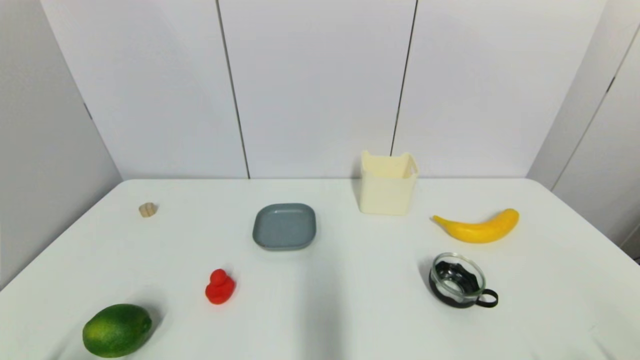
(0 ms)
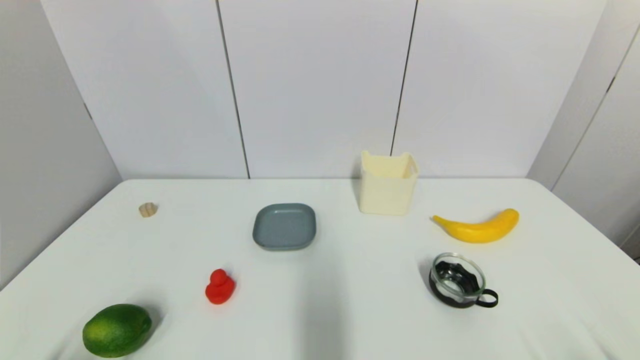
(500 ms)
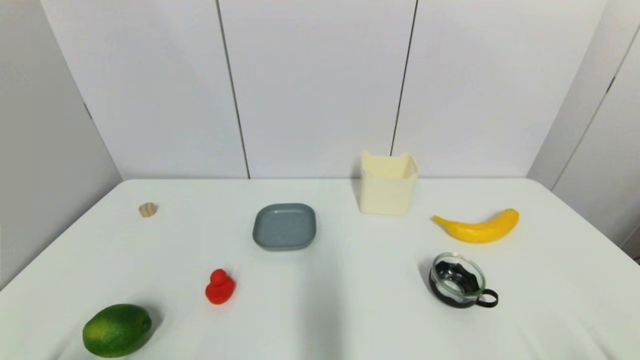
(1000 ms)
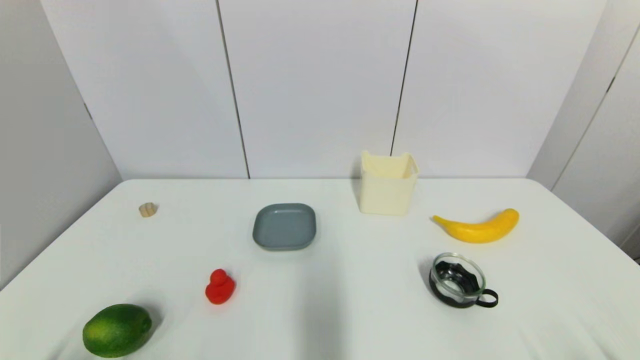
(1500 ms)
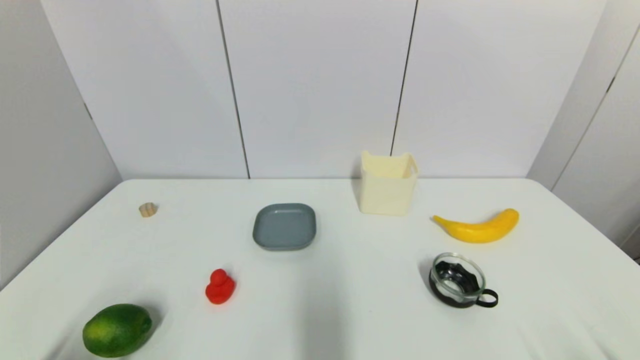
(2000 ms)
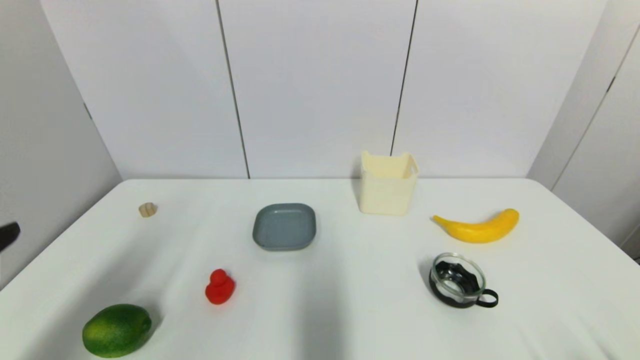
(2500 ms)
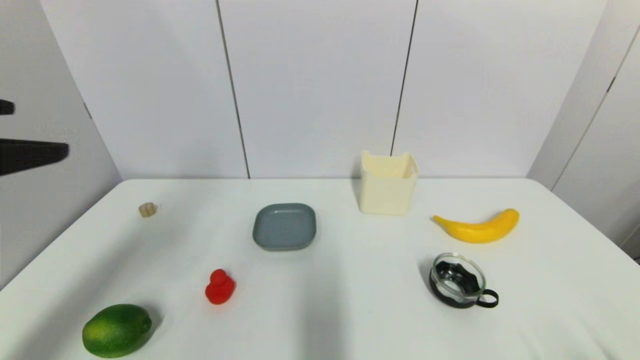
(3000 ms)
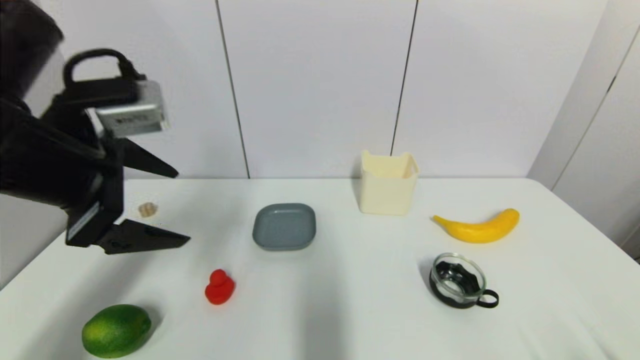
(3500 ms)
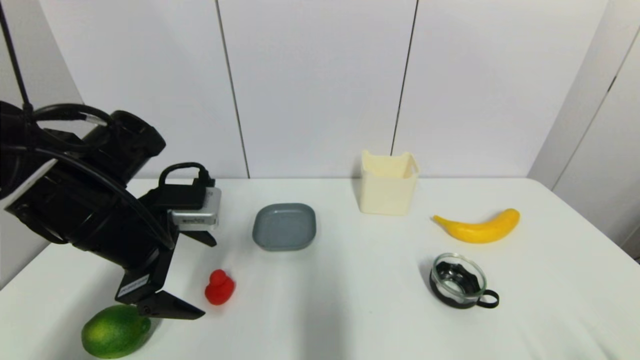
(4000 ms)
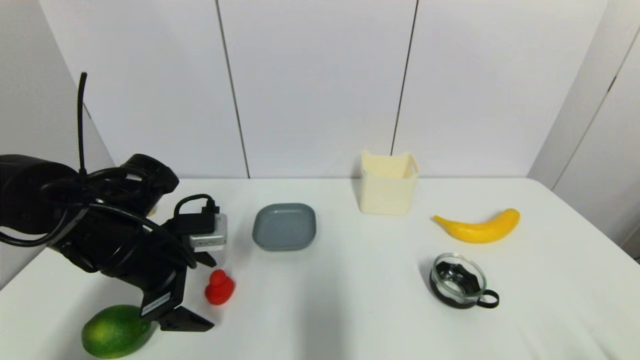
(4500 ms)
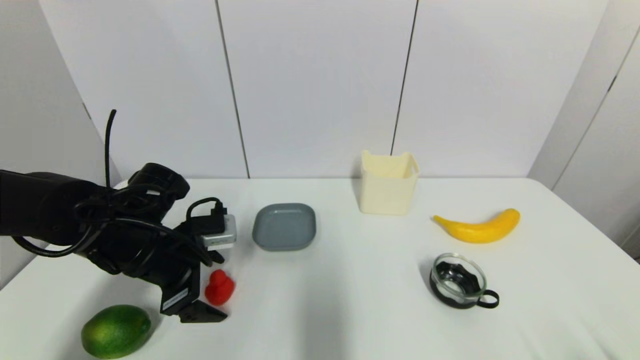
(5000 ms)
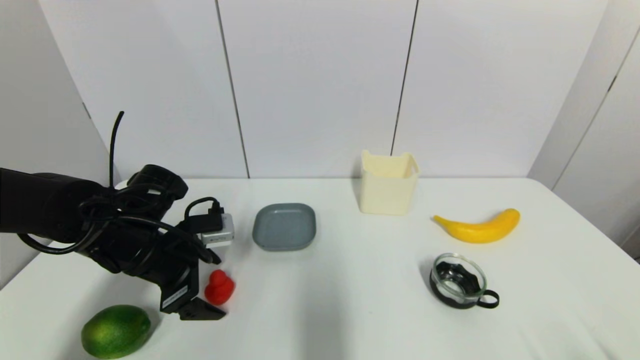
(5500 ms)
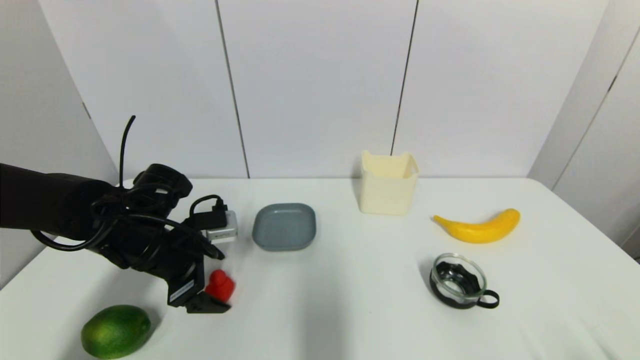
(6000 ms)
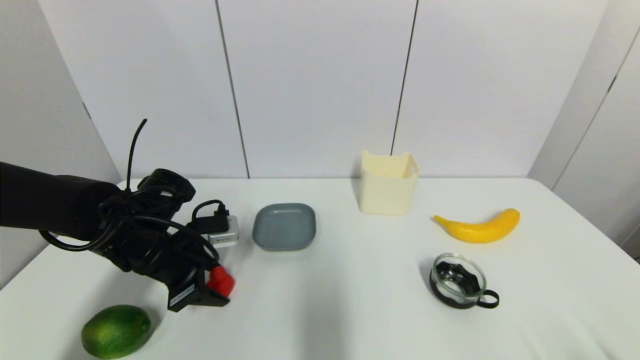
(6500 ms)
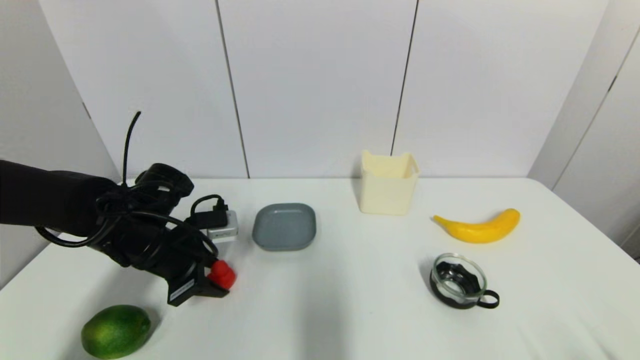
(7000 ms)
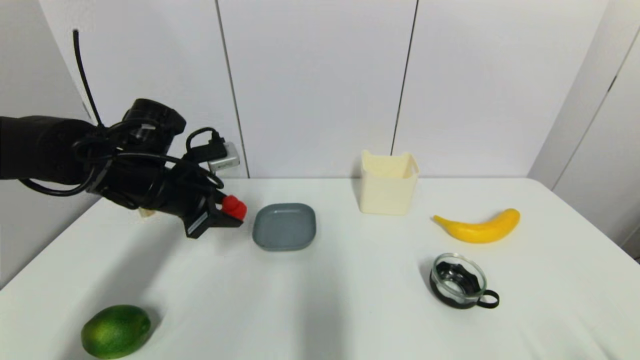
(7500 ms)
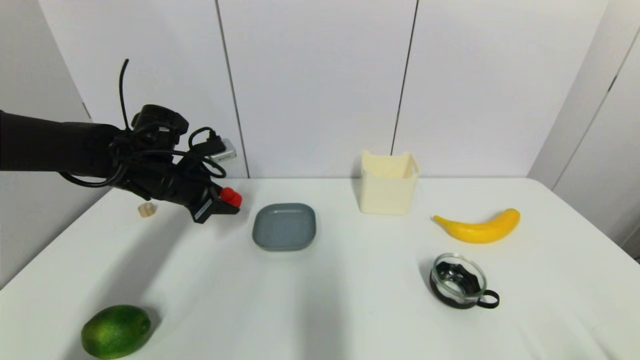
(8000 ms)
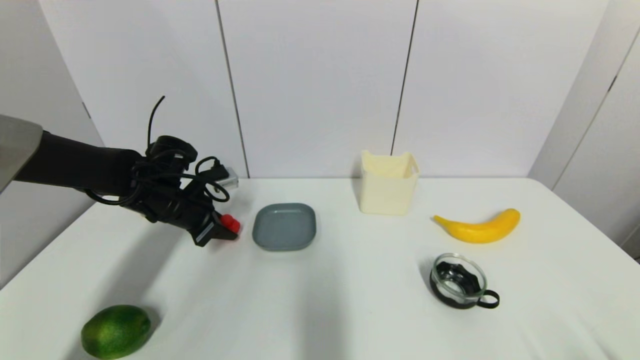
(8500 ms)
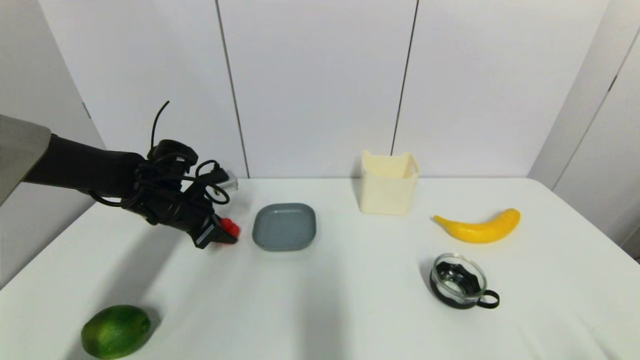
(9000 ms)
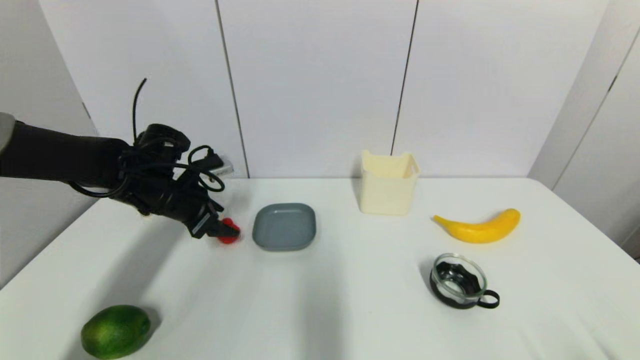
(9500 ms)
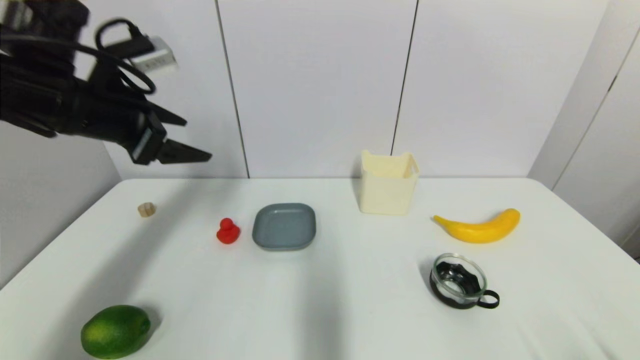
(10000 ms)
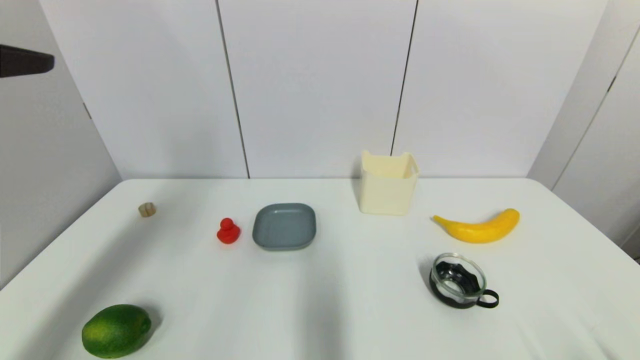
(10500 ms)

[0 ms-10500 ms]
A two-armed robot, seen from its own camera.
Step, 2500 ms to 7000 ms: Grasp the red duck with left gripper.
Step, 7500 ms to 9500 ms: Place the red duck on the table with left gripper.
2000 ms to 4000 ms: The left gripper is displaced forward and upward by roughly 25 cm.
4000 ms to 6500 ms: The left gripper goes some 10 cm downward, and closes its fingers.
6500 ms to 8500 ms: The left gripper shifts roughly 10 cm forward.
8500 ms to 10500 ms: The left gripper goes roughly 35 cm upward and backward, and opens its fingers.

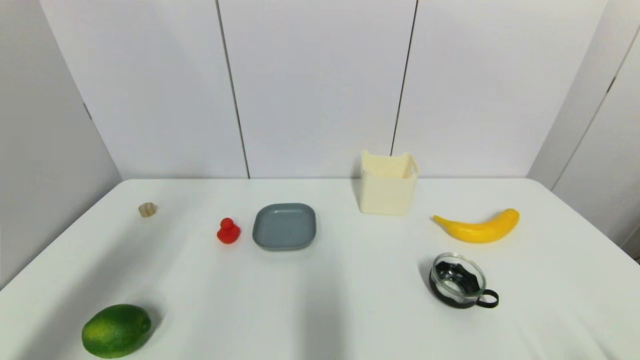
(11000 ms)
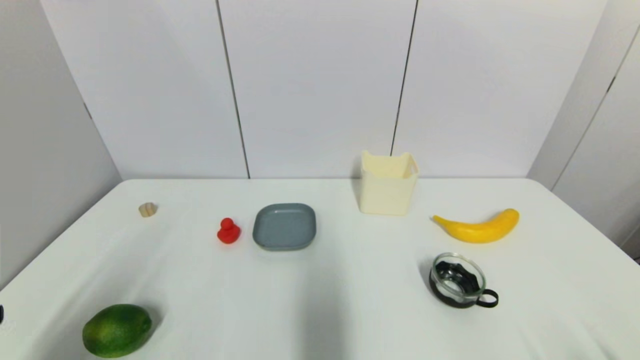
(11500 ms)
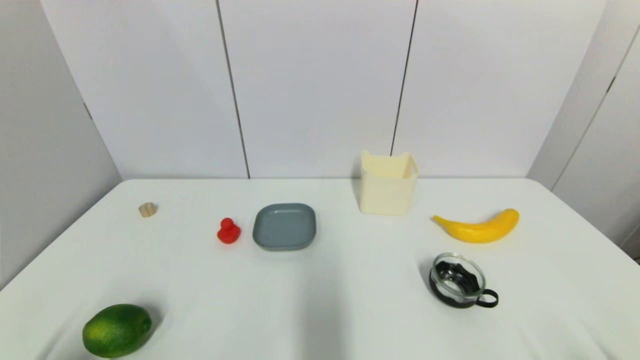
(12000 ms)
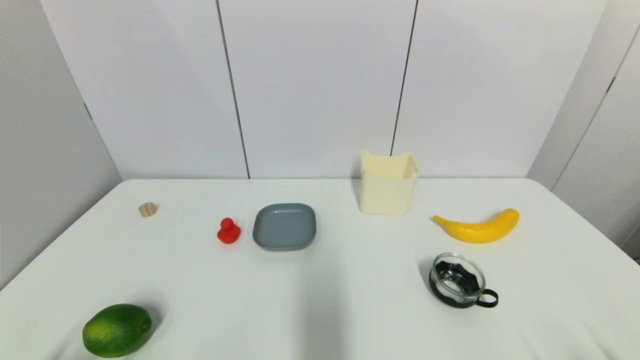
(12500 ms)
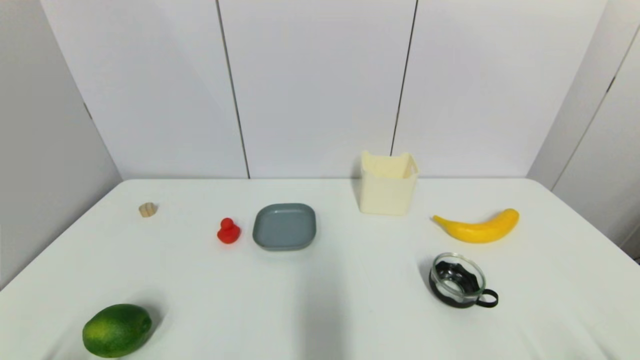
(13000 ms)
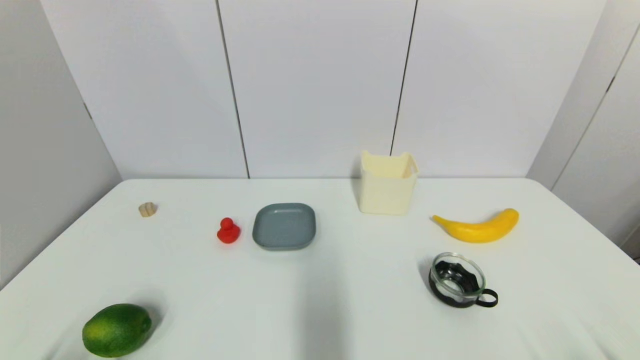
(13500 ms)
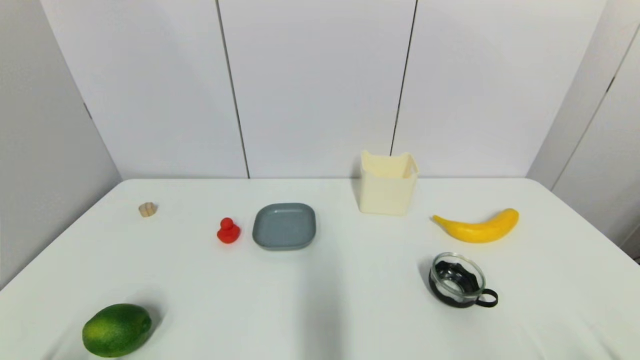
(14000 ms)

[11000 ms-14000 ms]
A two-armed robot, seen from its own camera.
11000 ms to 12500 ms: The left gripper goes roughly 30 cm downward.

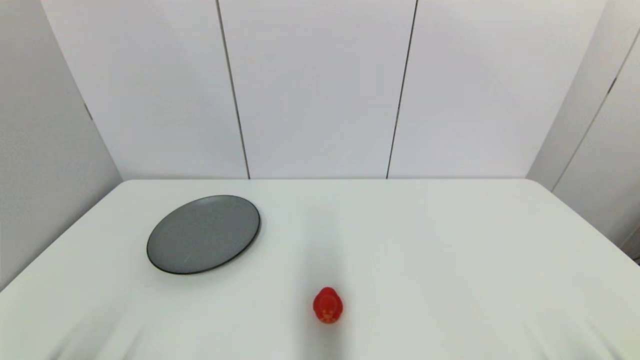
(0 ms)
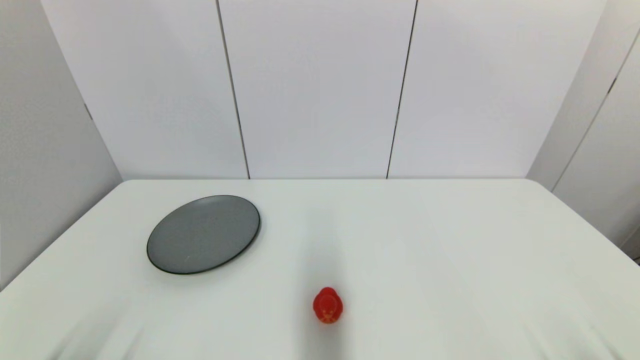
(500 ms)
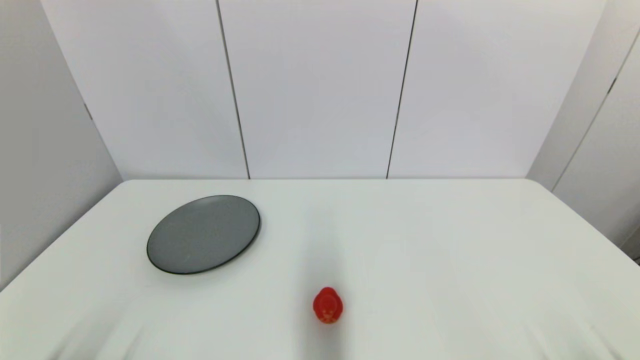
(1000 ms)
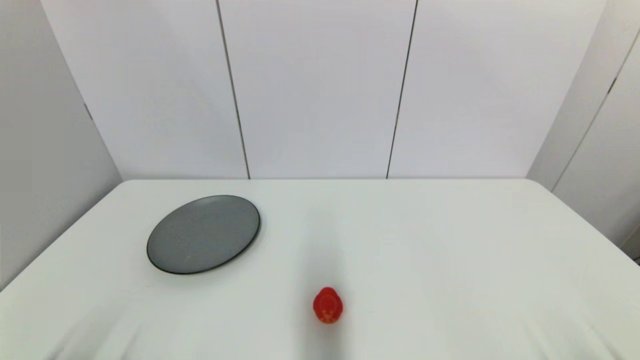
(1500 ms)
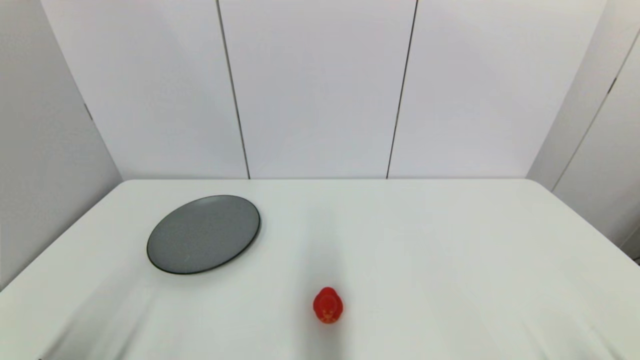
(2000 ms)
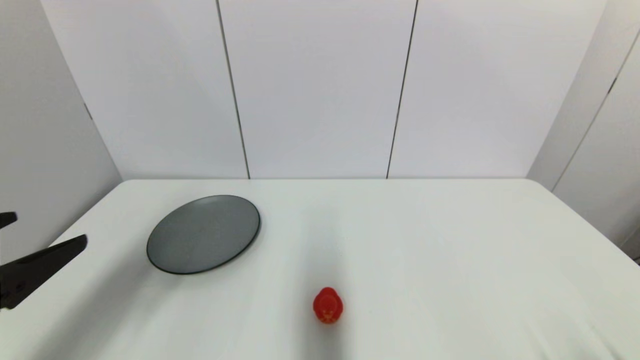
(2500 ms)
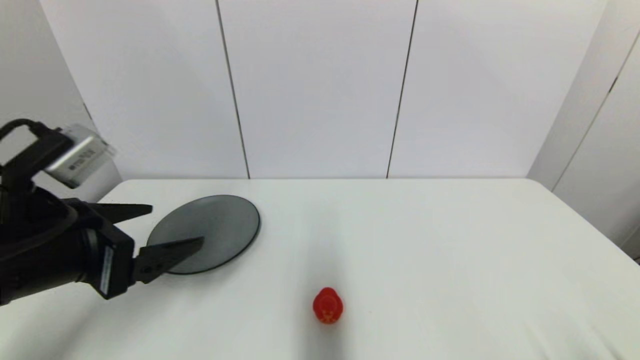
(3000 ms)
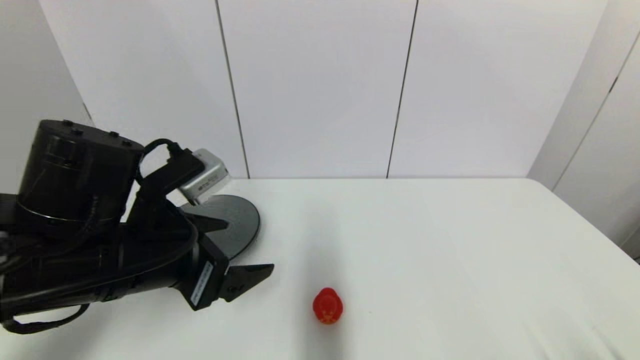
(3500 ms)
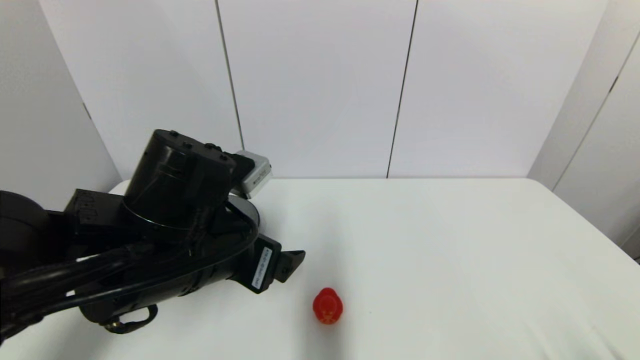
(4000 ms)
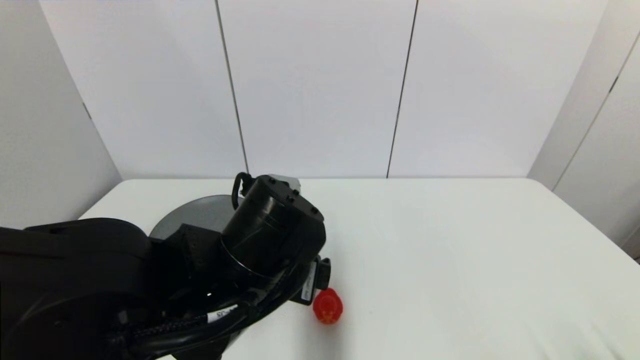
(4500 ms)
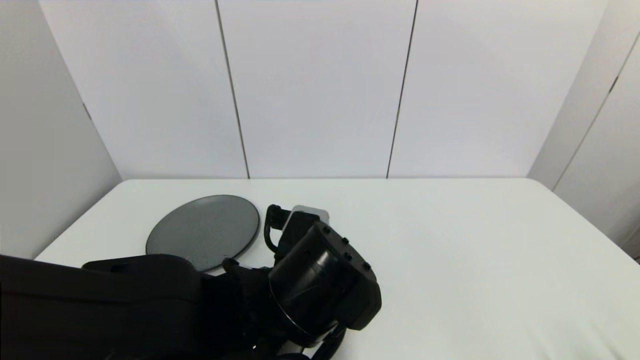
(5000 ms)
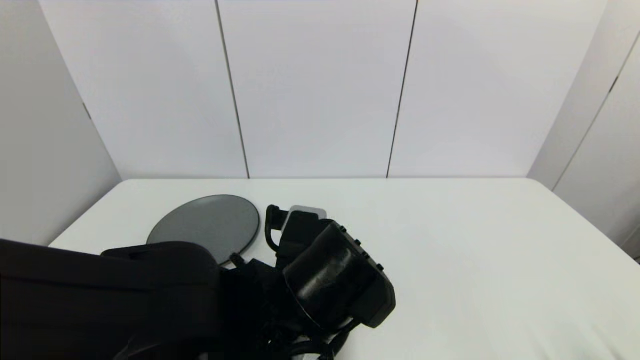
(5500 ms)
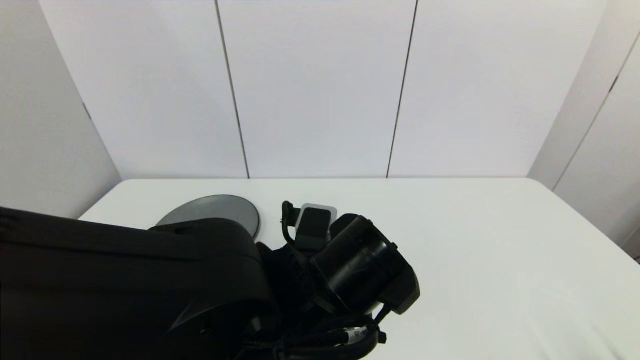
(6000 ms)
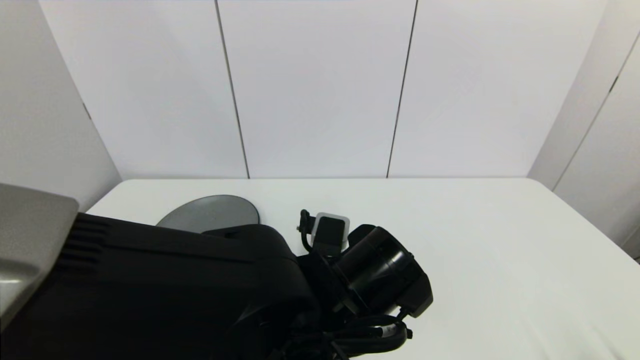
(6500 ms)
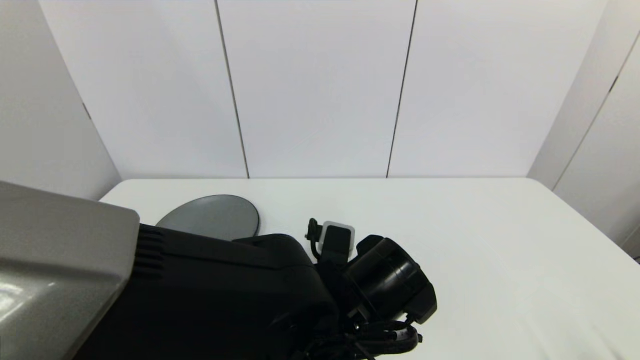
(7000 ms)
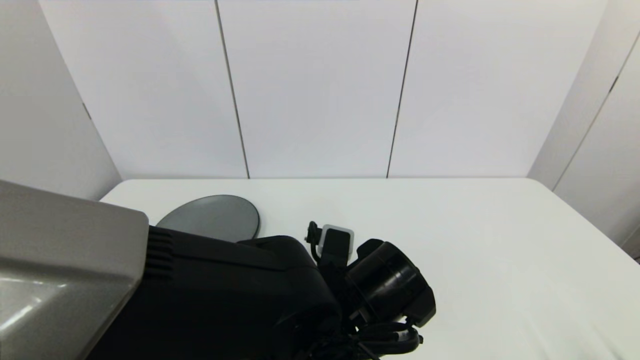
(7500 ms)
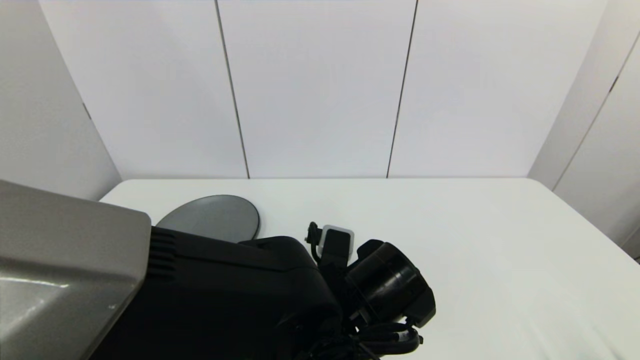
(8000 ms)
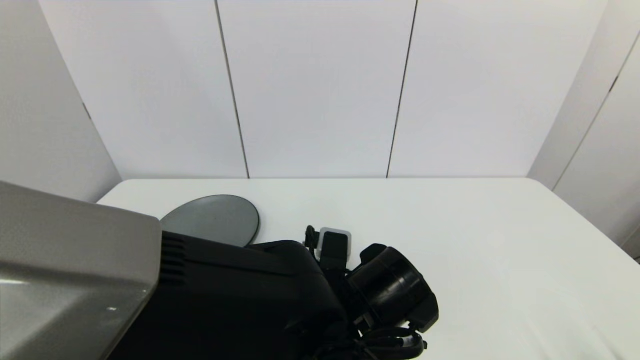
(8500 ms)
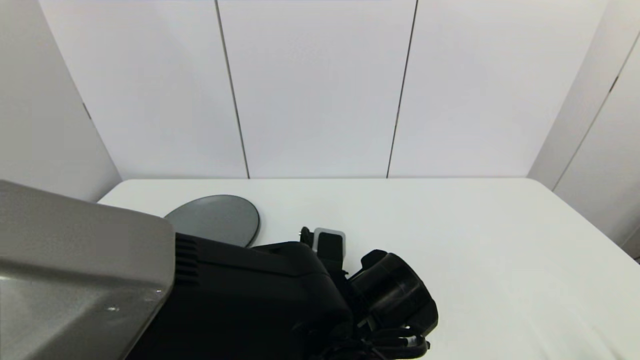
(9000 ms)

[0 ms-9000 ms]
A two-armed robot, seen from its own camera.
2000 ms to 4500 ms: The left gripper shifts about 30 cm to the right and forward.
4500 ms to 7000 ms: The left gripper goes approximately 10 cm to the right and downward.
7000 ms to 9000 ms: The grippers make only small movements.
